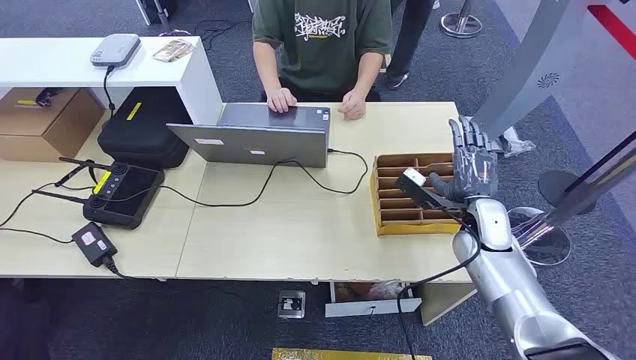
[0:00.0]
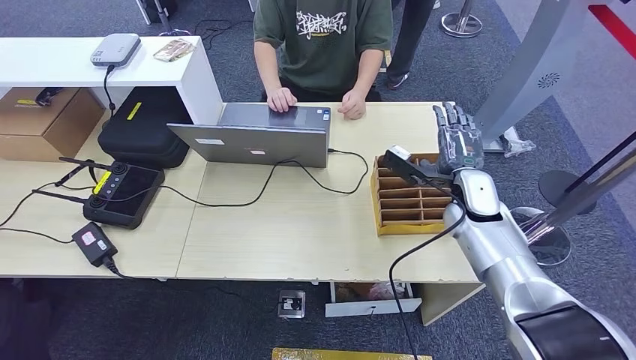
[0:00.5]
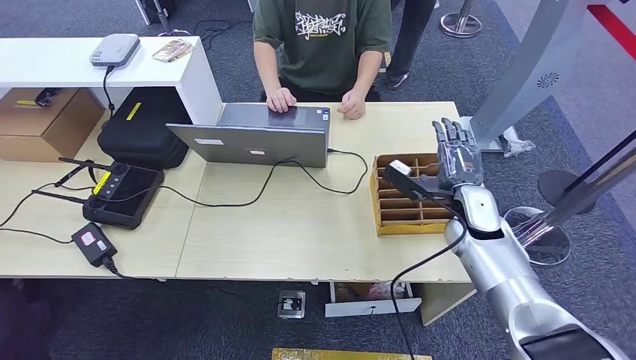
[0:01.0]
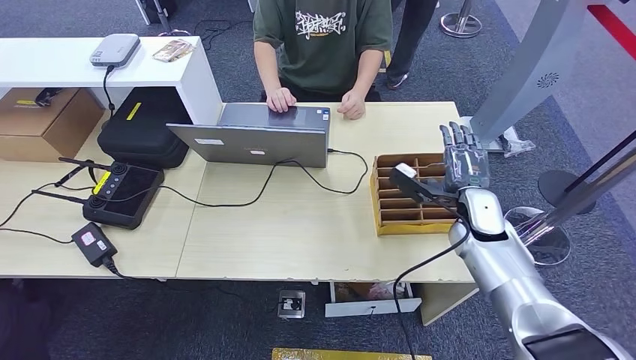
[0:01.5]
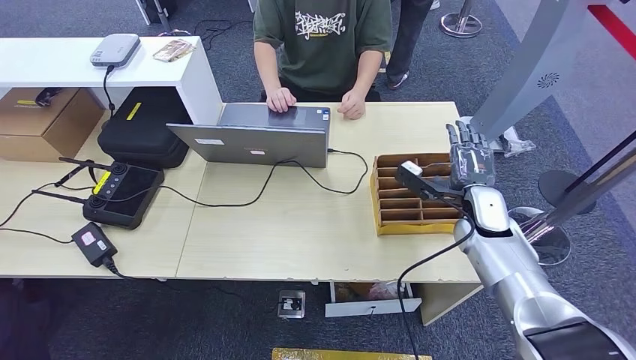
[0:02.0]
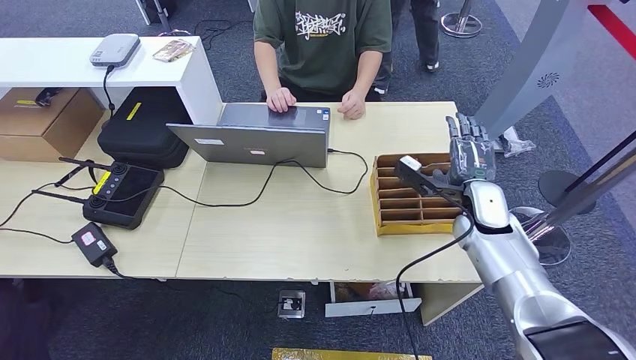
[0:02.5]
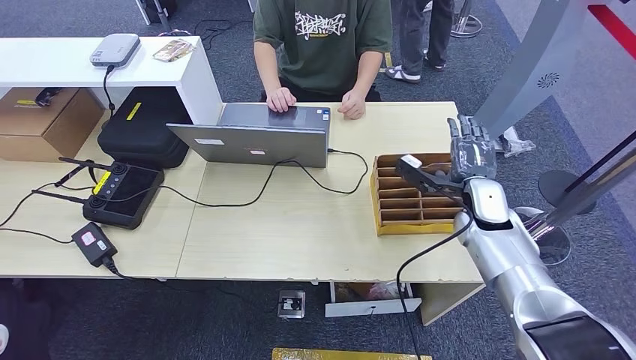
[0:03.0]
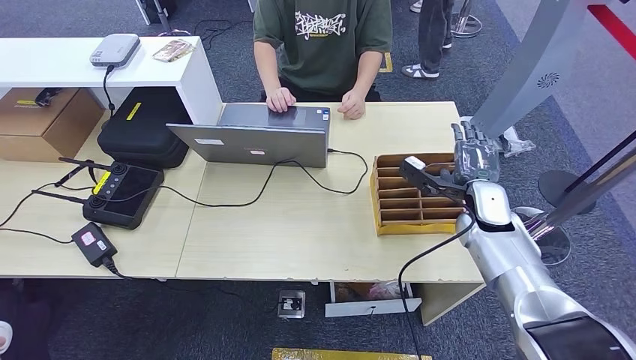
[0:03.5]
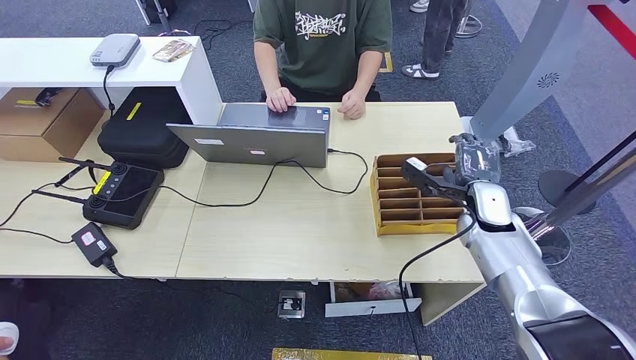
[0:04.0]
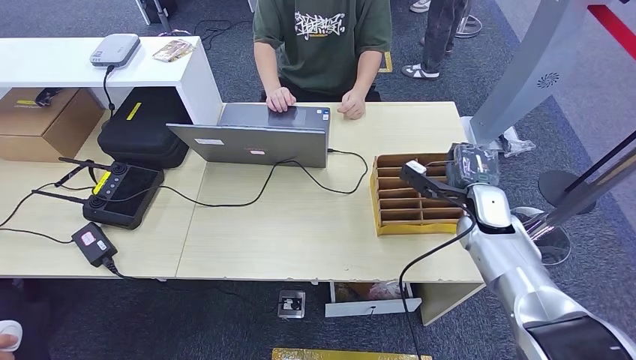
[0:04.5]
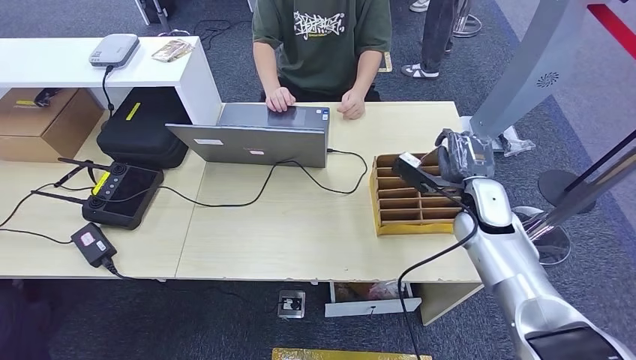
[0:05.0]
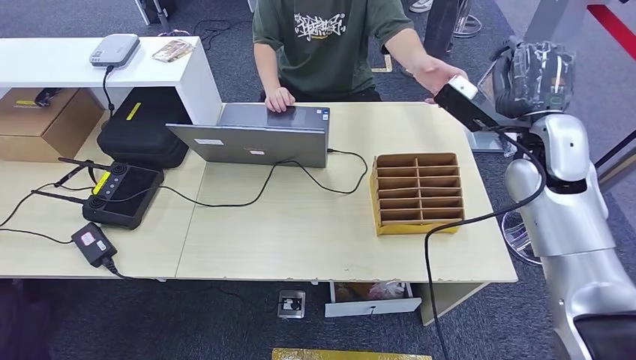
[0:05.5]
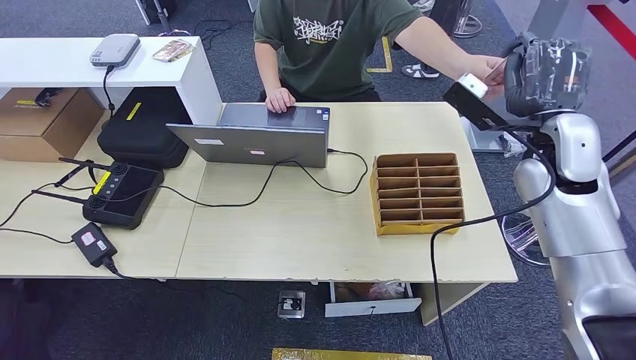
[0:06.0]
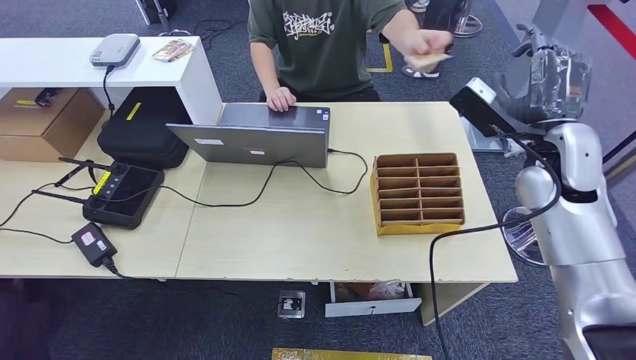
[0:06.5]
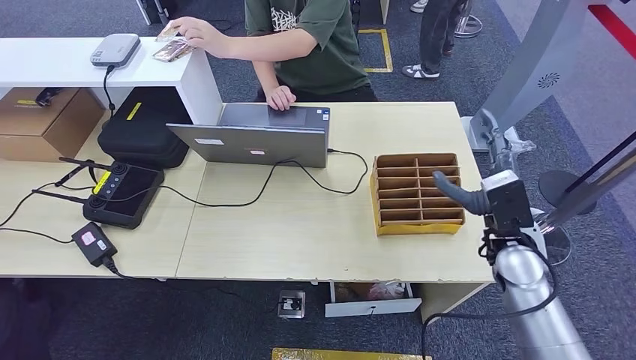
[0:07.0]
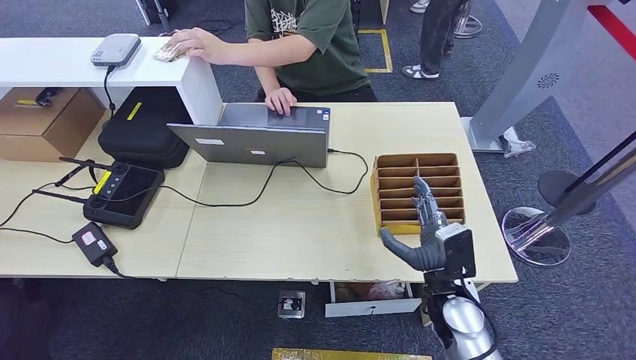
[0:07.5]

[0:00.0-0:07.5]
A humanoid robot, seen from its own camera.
Step, 0:00.0 to 0:05.0: Pick up the room card from the card holder.
Step, 0:05.5 to 0:07.5: Hand the room card to the target.
0:02.0 to 0:04.0: The hands make only small movements.
0:04.0 to 0:05.5: The right hand is displaced upward by some 20 cm.
